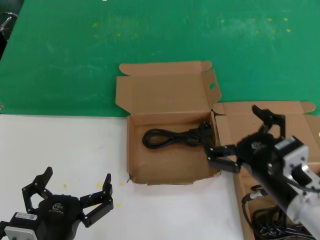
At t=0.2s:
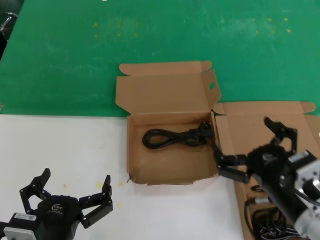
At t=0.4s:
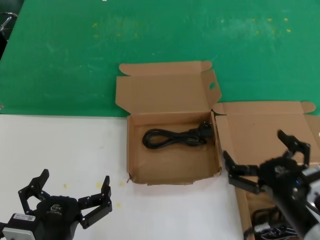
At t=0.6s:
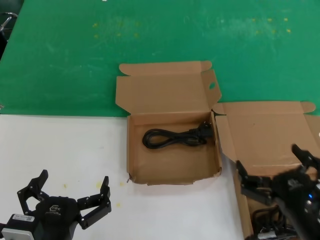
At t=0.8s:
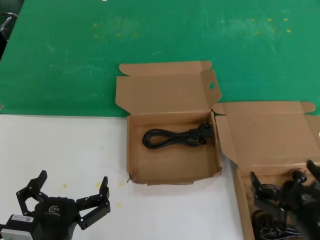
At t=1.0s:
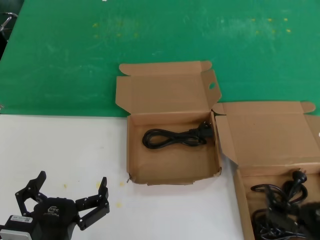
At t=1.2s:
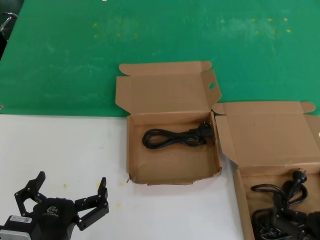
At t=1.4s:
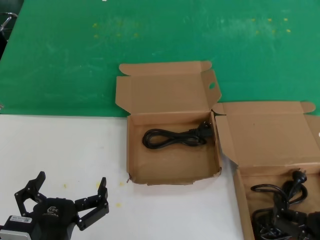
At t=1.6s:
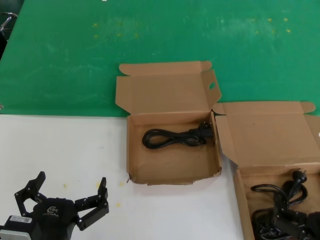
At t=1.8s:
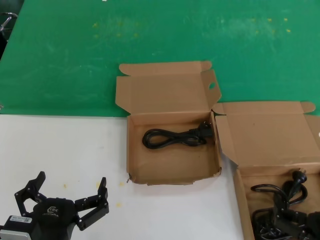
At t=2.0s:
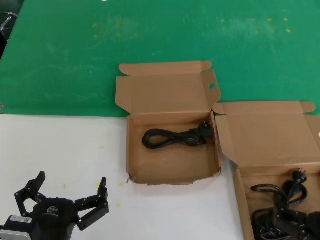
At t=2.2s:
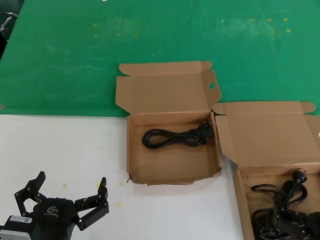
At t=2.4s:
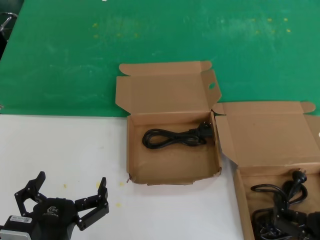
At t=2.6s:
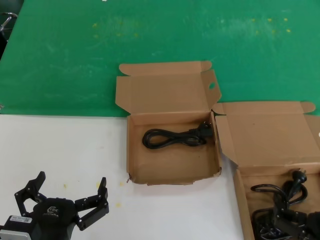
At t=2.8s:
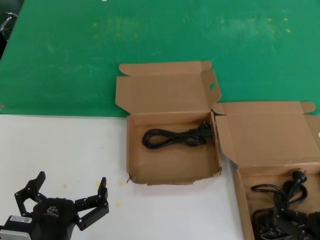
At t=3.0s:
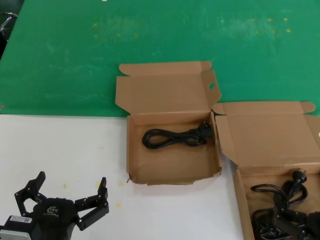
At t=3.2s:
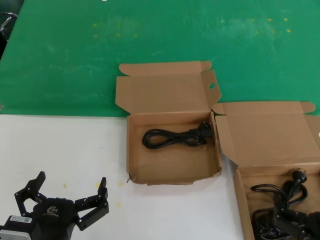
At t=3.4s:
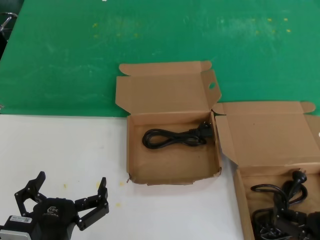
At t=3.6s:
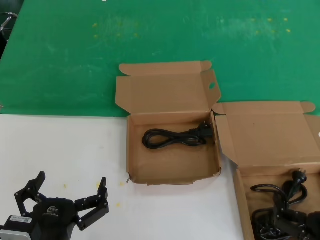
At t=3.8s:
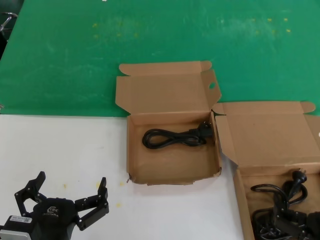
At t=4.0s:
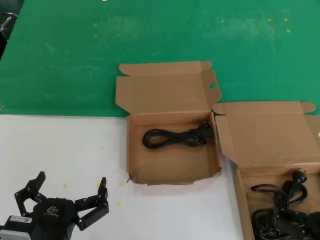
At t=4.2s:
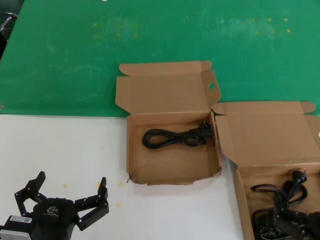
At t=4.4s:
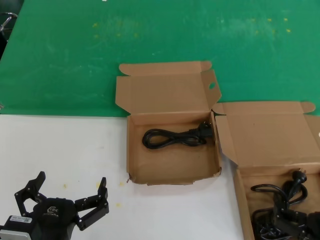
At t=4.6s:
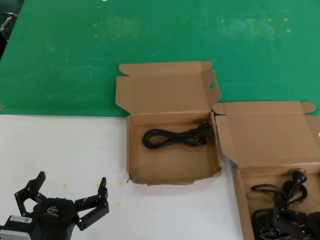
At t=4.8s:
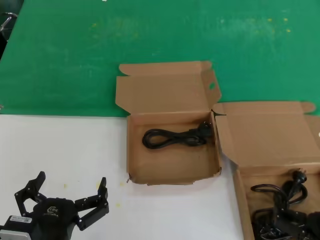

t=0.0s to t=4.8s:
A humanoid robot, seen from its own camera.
Task of the whole recording: take the parts from the box containing them and put them into an empty box.
t=0.0s to t=1.6s: The right hand travels downward, backward and to the right by some 15 cm.
t=1.6s to t=4.8s: Both hands stay about where they are.
